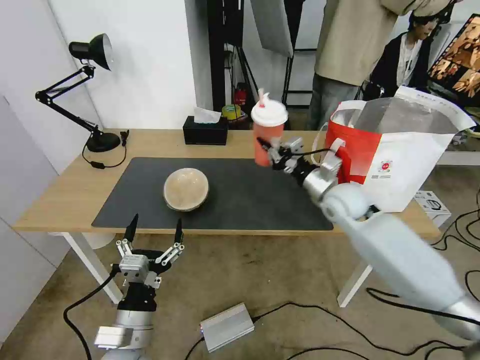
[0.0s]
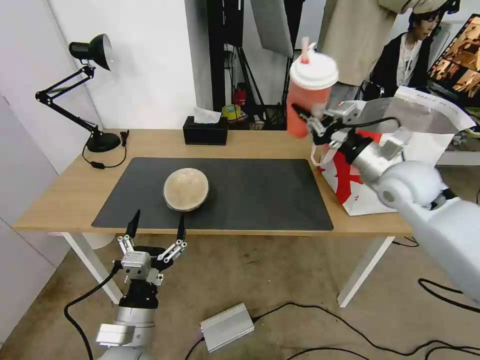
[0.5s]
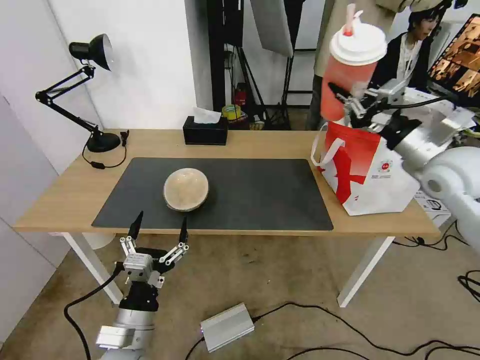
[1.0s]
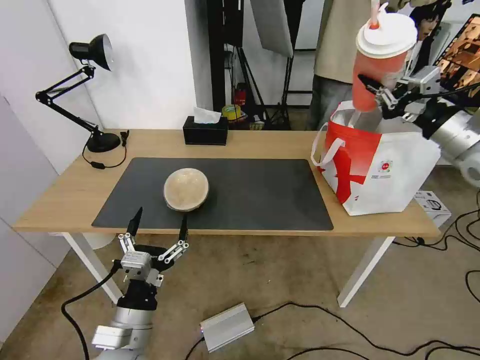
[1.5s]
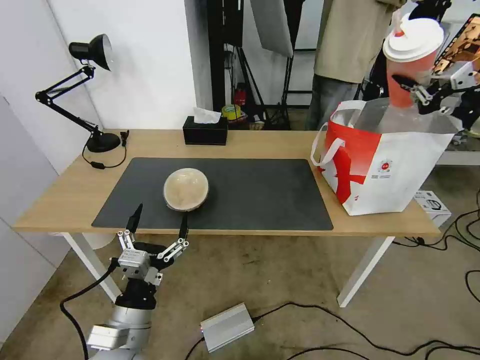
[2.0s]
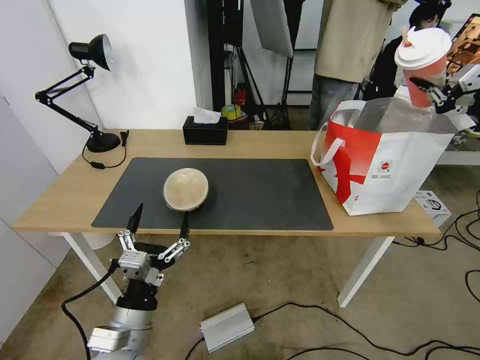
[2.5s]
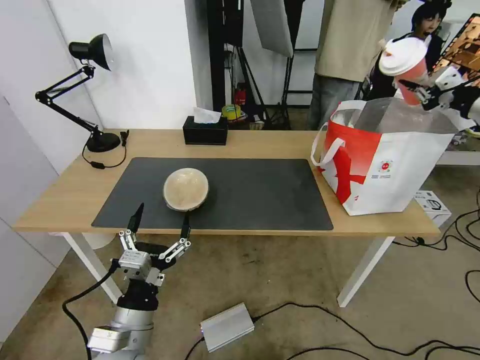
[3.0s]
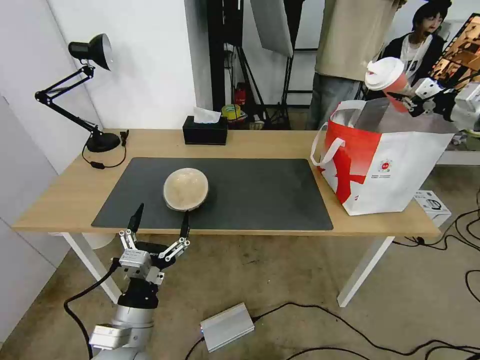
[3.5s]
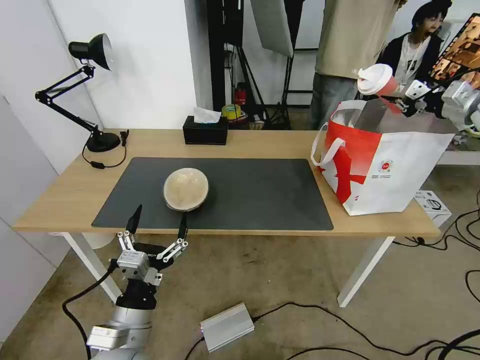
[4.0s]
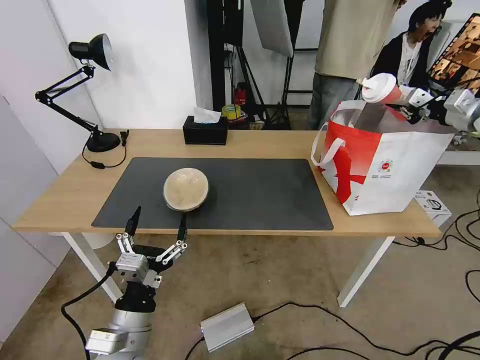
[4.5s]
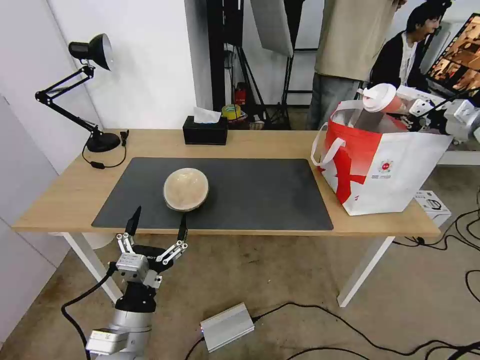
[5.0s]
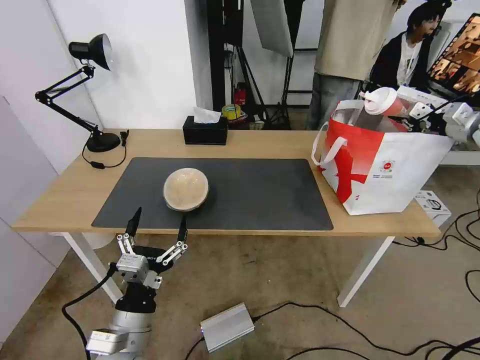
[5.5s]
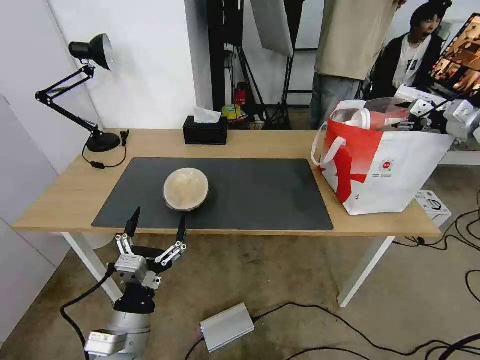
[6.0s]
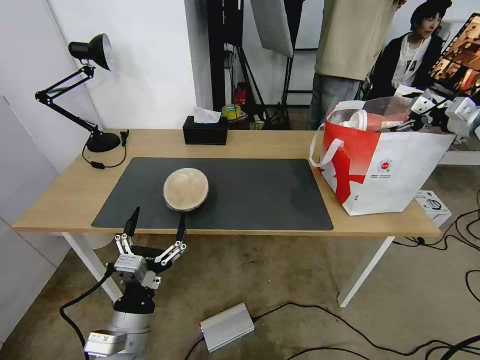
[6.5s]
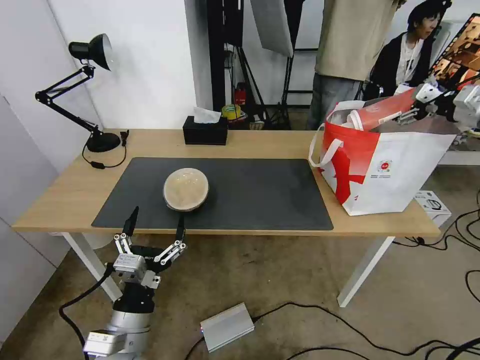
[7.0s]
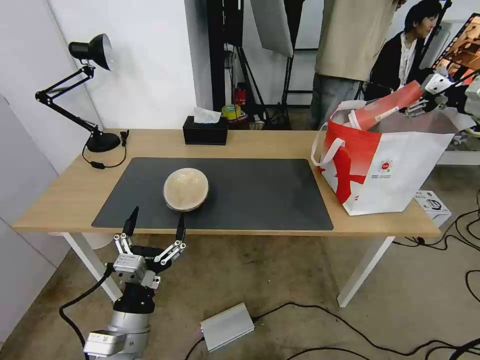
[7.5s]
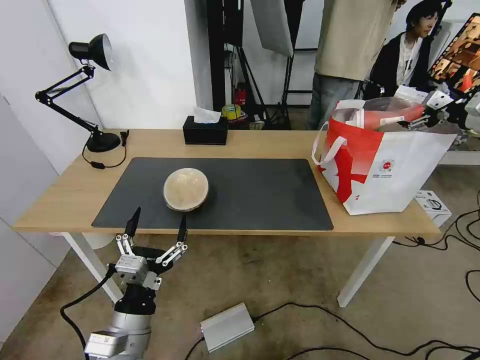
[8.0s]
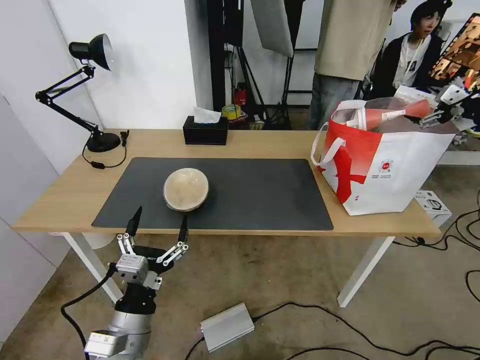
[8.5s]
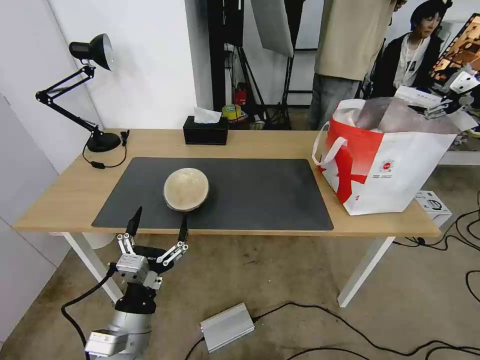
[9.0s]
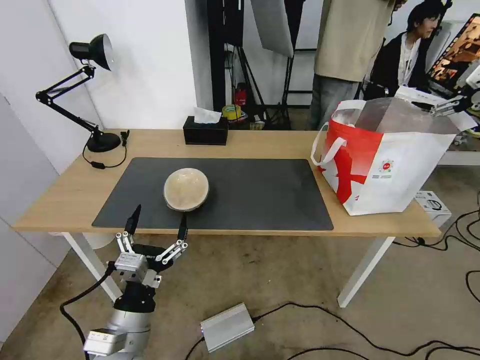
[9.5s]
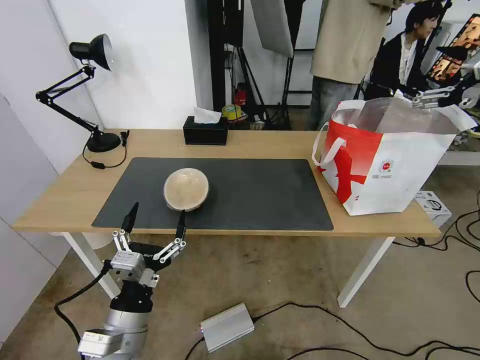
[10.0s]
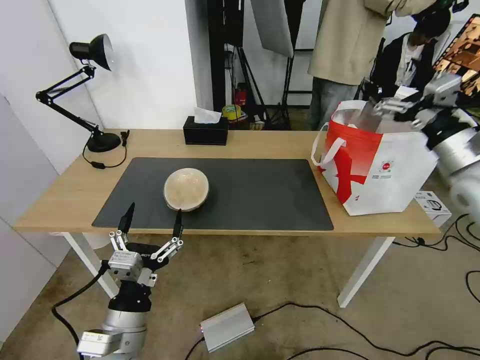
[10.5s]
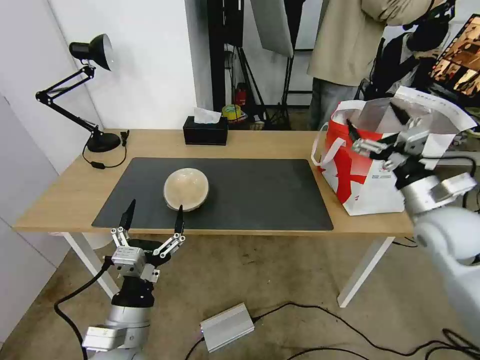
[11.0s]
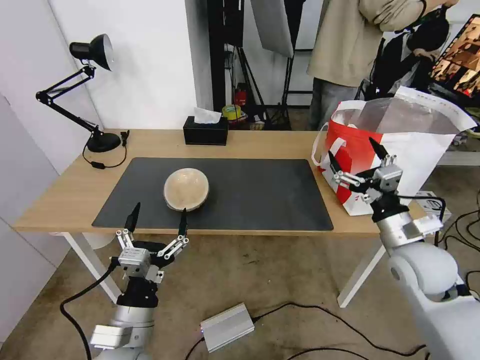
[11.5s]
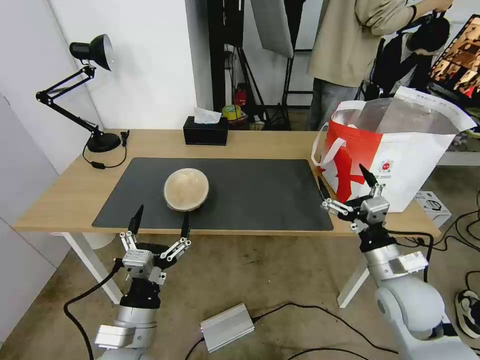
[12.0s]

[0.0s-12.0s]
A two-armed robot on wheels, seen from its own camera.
Task of the whole recording: Pick up the trash from the table and place it into the takeout bag.
0.0s to 2.0s: The right gripper moves to the right and upward, approximately 30 cm.
2.0s to 4.0s: The right gripper travels forward by roughly 15 cm.
4.0s to 6.0s: The right gripper ends up some 5 cm from where it was, and opens.
6.0s to 8.0s: The right gripper opens up.
8.0s to 10.0s: The right gripper heads backward and to the left, covering approximately 15 cm.
10.0s to 12.0s: The right gripper travels downward, to the left and backward by approximately 35 cm.

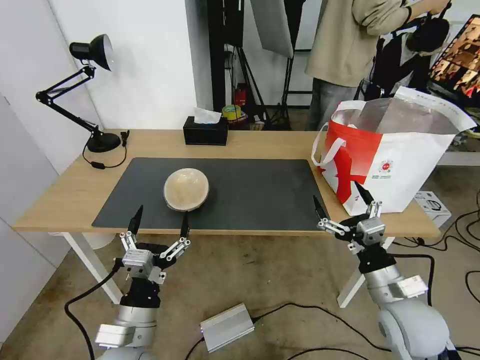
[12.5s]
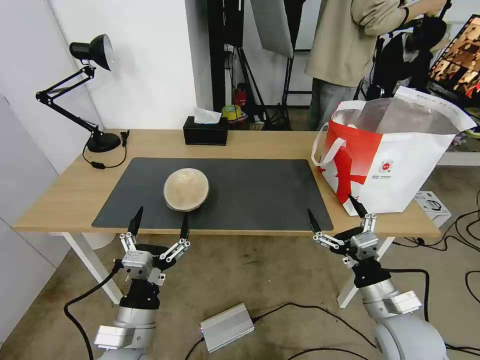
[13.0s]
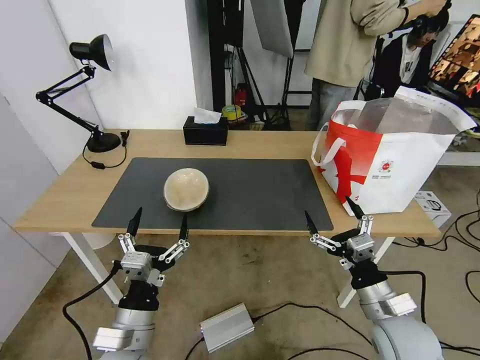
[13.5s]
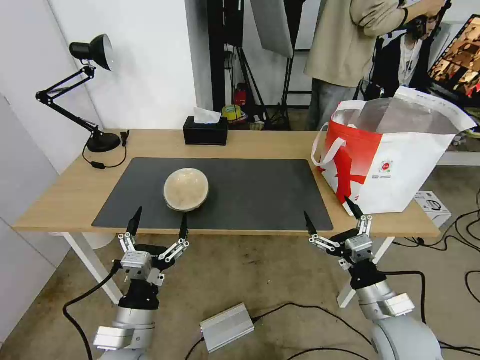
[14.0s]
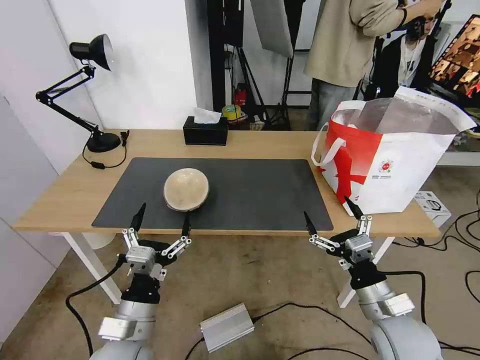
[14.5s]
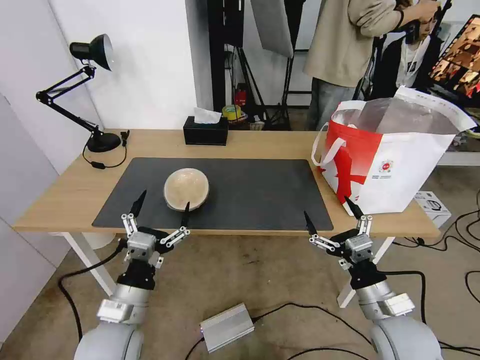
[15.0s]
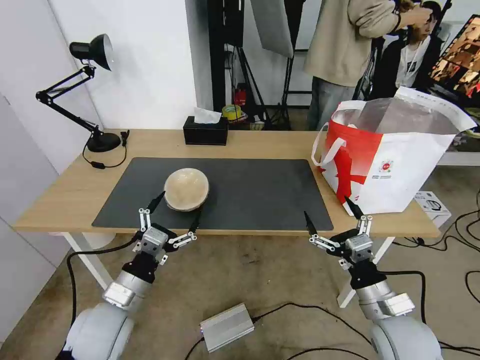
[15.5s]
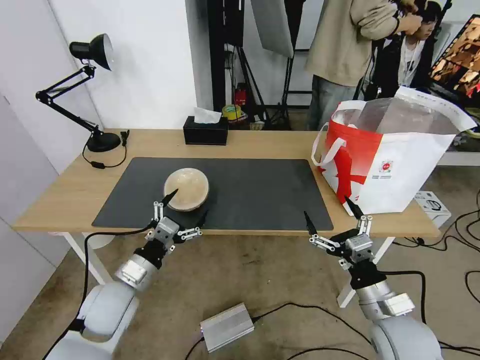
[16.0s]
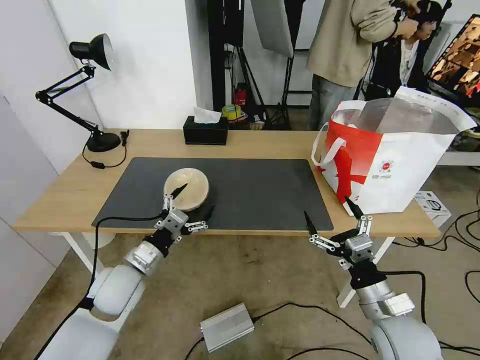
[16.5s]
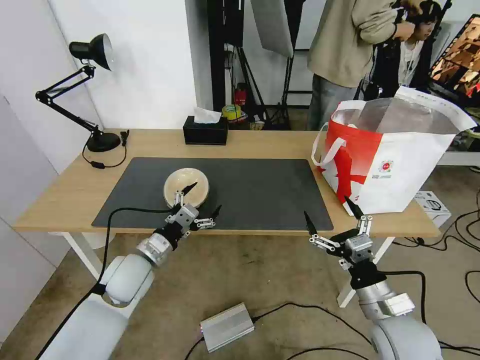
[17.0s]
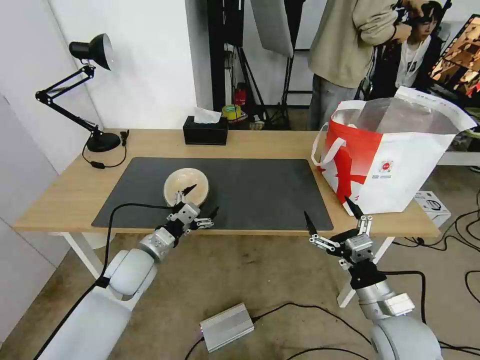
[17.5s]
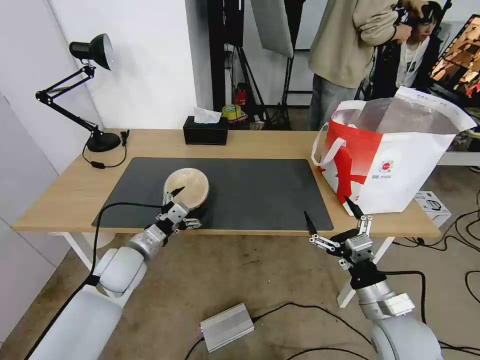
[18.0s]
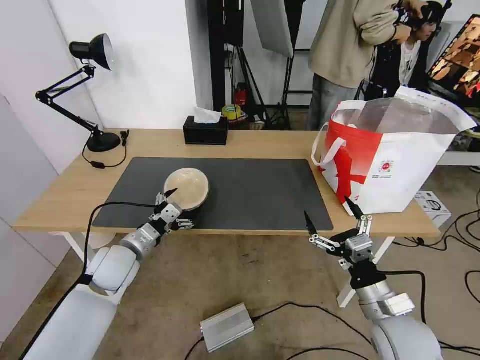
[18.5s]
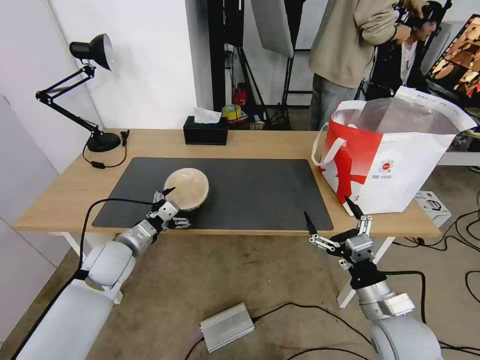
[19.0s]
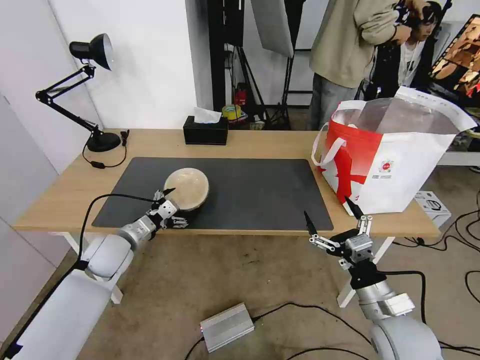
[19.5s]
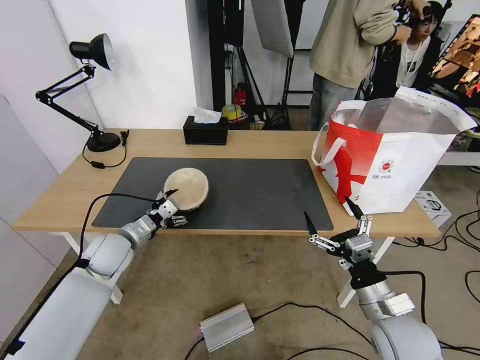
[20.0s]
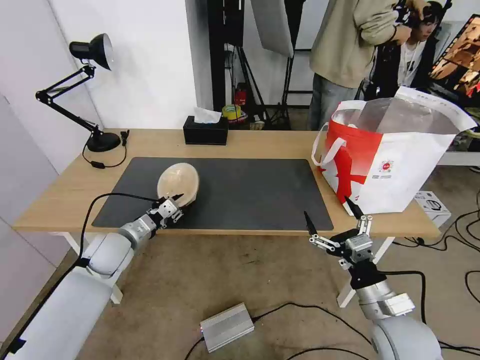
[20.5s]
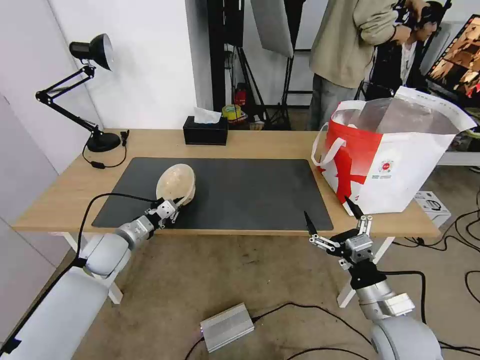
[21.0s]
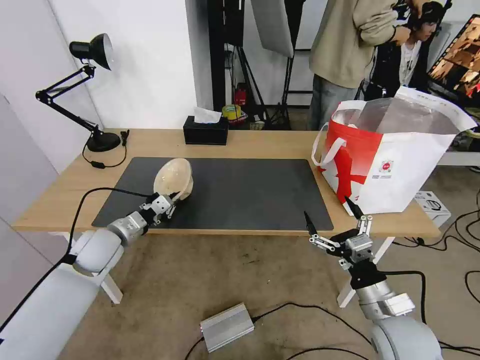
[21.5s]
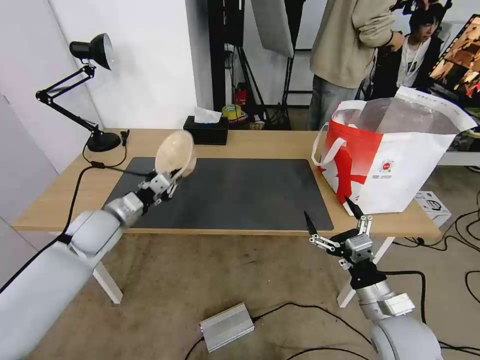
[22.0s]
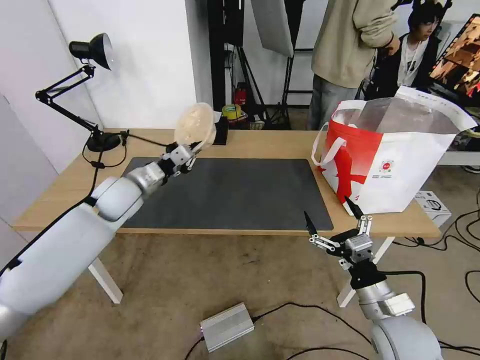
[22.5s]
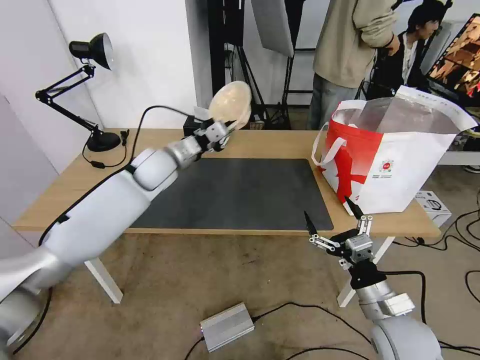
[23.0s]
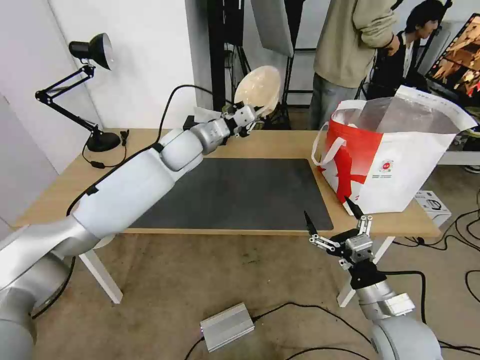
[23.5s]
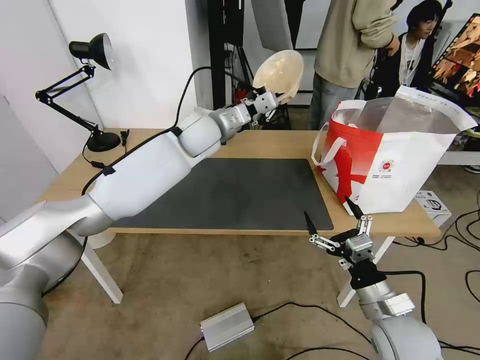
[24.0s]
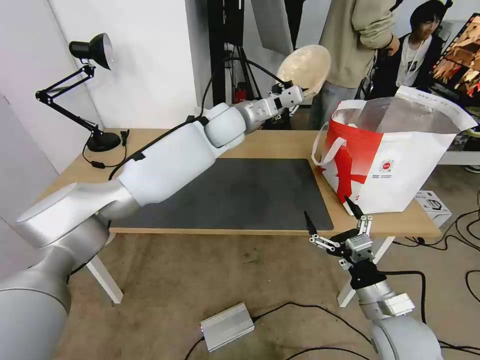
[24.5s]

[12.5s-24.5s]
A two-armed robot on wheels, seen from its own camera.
Task of the whole recording: Pick up the trash from the table and place it into the takeout bag.
12.5s to 14.5s: There are only small adjustments of the grippers.
14.5s to 16.5s: The left gripper travels forward by some 15 cm.
16.5s to 18.5s: The left gripper shifts by some 5 cm.
18.5s to 20.5s: The left gripper closes.
20.5s to 22.5s: The left gripper is displaced upward and forward by roughly 15 cm.
22.5s to 24.5s: The left gripper shifts roughly 30 cm to the right, upward and forward.

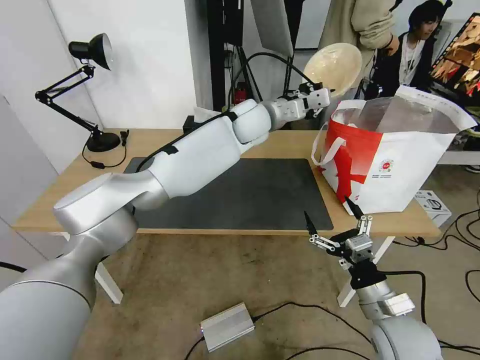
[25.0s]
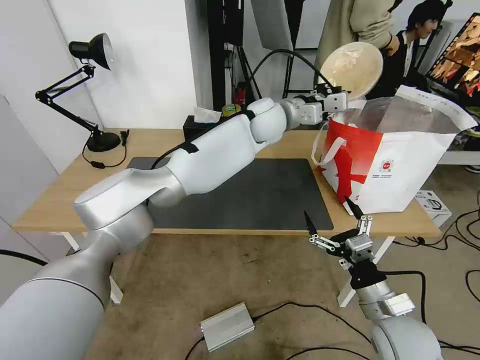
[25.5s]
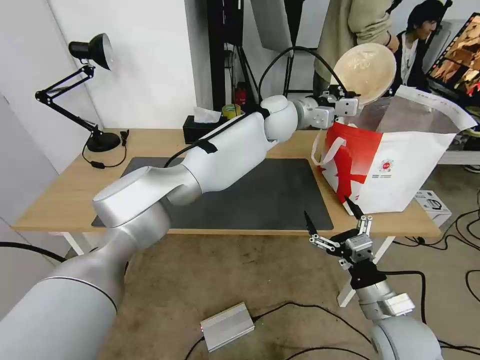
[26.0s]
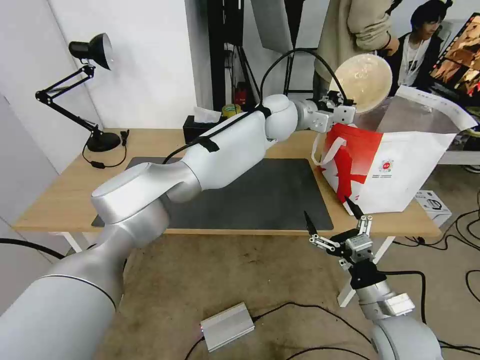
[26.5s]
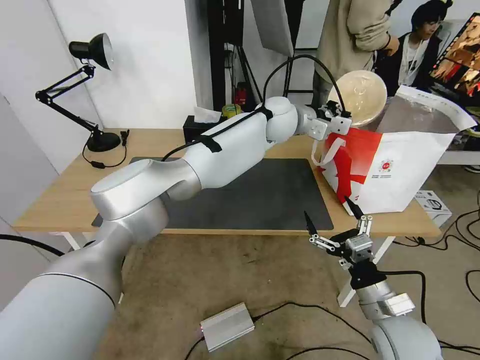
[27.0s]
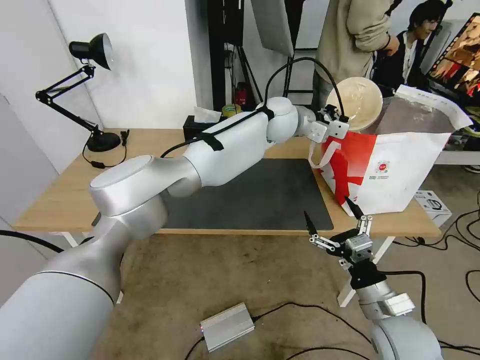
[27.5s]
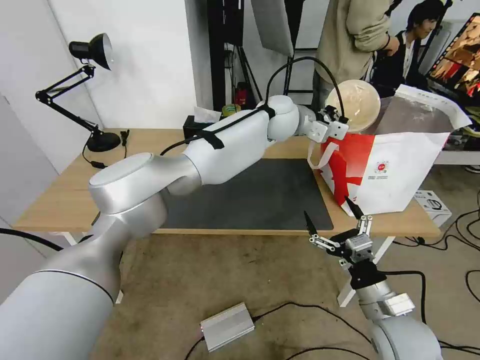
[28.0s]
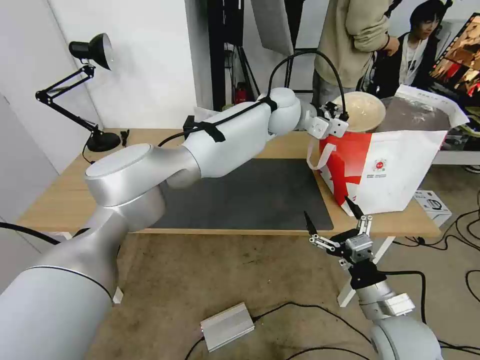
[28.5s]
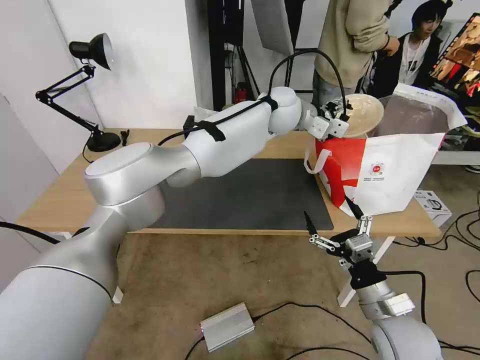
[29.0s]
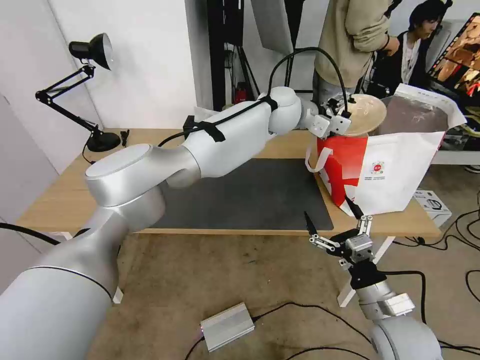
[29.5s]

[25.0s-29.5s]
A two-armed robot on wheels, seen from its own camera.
Task of the whole recording: Pick up the trash from the table and place it into the takeout bag.
25.0s to 27.0s: The left gripper travels to the right by about 5 cm.
27.0s to 29.5s: The left gripper opens up.
